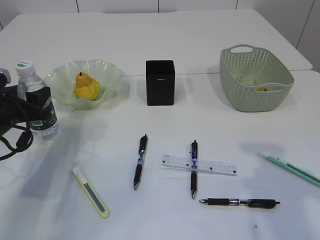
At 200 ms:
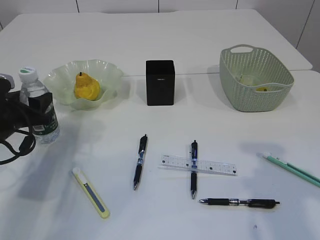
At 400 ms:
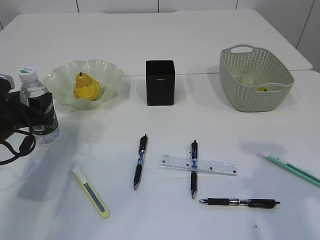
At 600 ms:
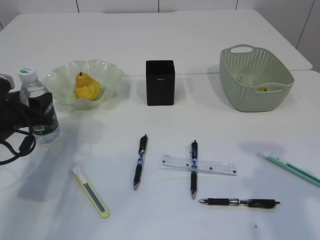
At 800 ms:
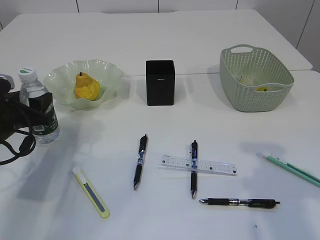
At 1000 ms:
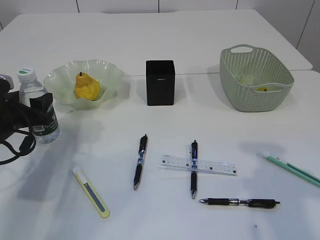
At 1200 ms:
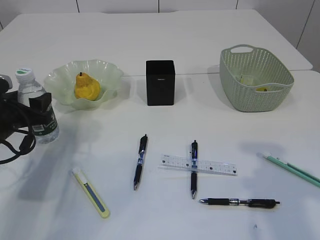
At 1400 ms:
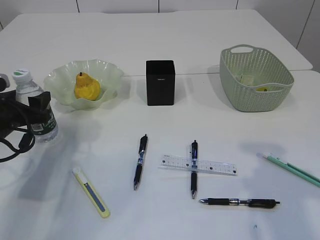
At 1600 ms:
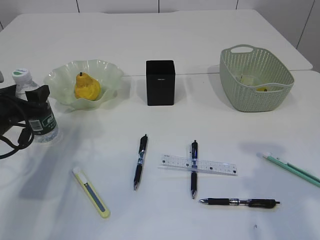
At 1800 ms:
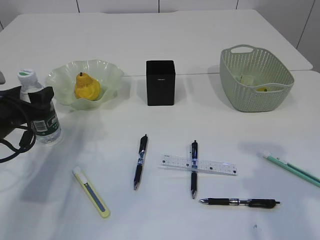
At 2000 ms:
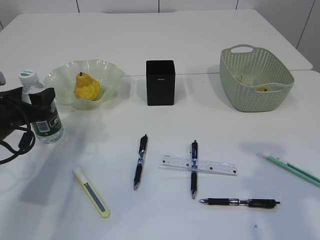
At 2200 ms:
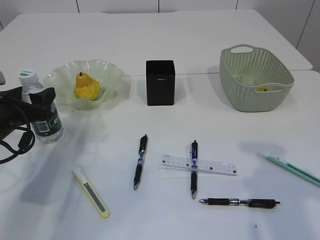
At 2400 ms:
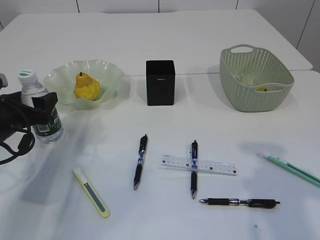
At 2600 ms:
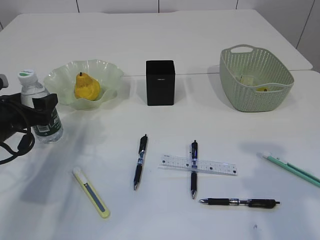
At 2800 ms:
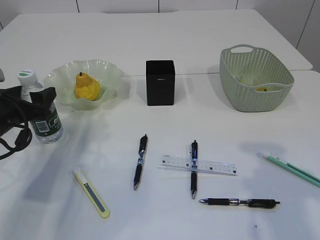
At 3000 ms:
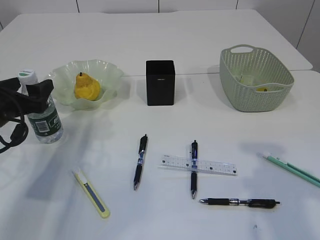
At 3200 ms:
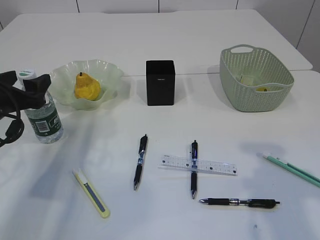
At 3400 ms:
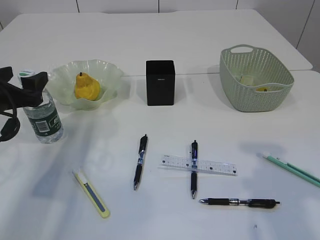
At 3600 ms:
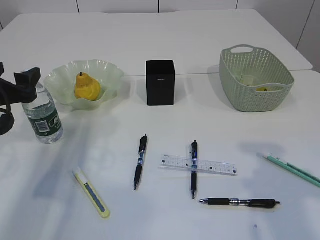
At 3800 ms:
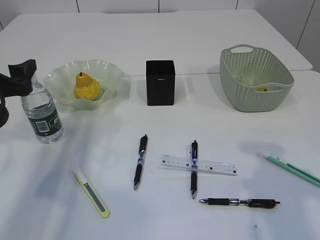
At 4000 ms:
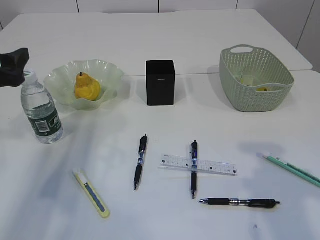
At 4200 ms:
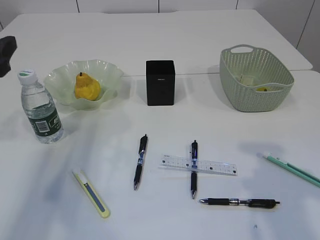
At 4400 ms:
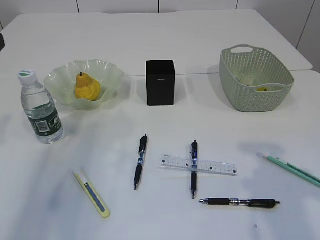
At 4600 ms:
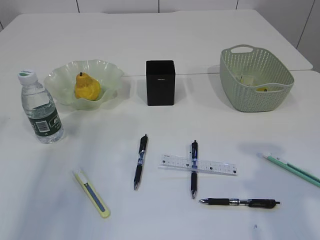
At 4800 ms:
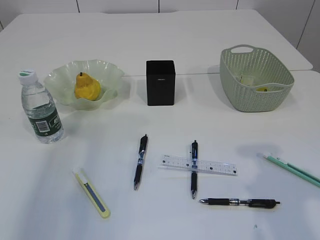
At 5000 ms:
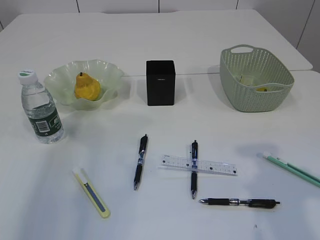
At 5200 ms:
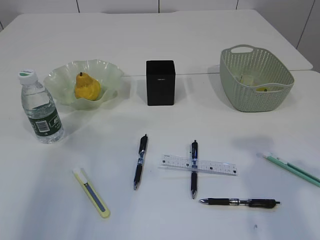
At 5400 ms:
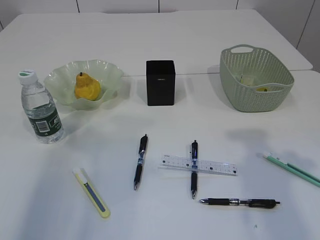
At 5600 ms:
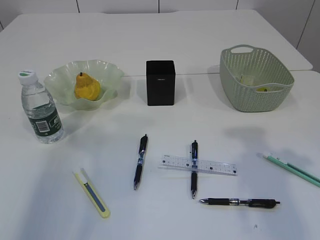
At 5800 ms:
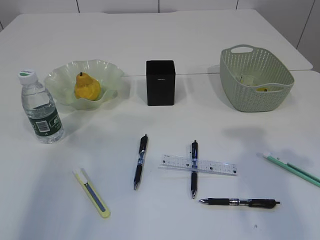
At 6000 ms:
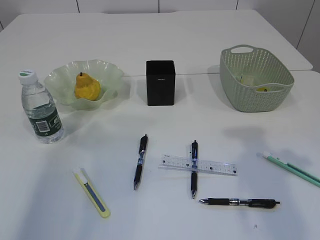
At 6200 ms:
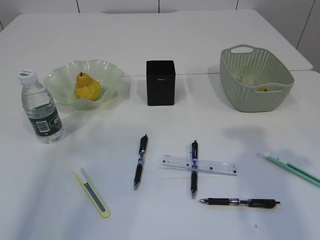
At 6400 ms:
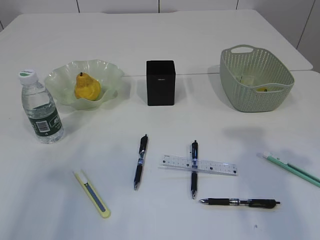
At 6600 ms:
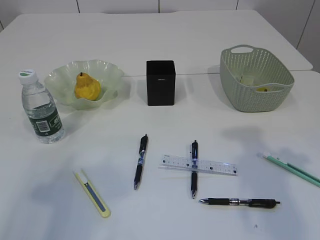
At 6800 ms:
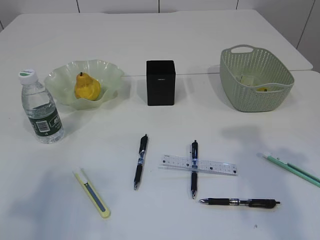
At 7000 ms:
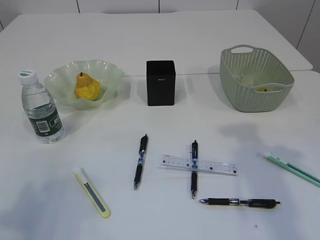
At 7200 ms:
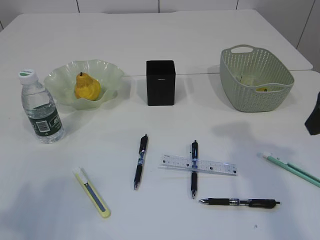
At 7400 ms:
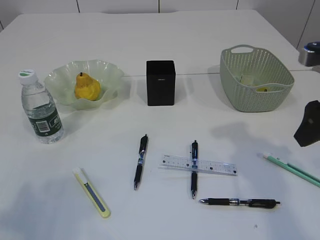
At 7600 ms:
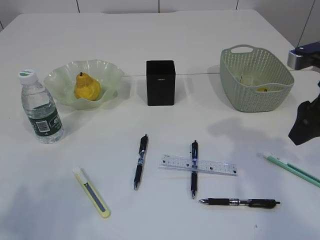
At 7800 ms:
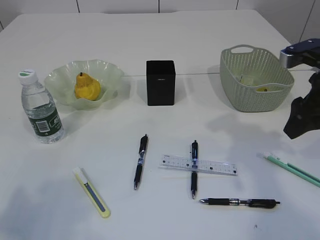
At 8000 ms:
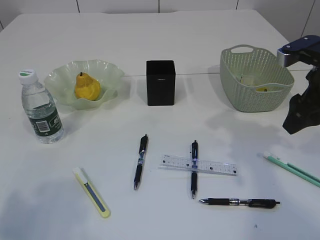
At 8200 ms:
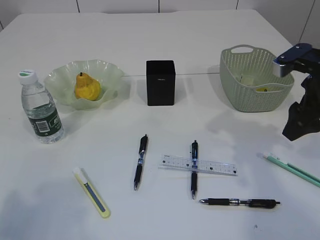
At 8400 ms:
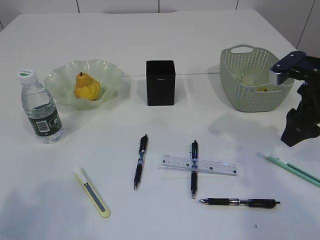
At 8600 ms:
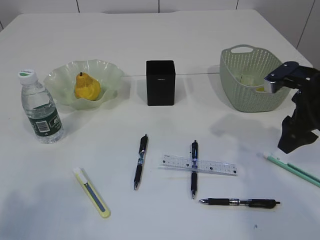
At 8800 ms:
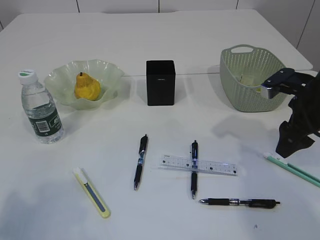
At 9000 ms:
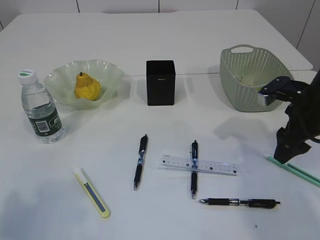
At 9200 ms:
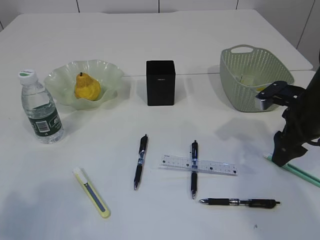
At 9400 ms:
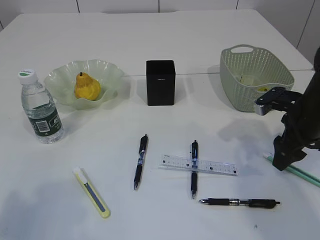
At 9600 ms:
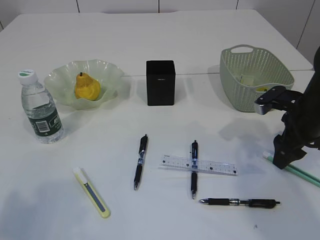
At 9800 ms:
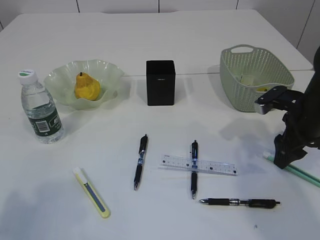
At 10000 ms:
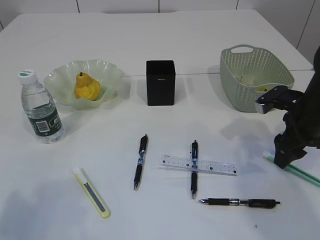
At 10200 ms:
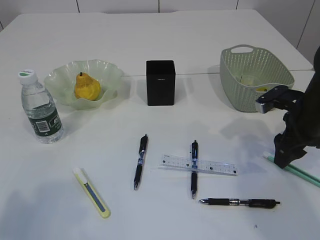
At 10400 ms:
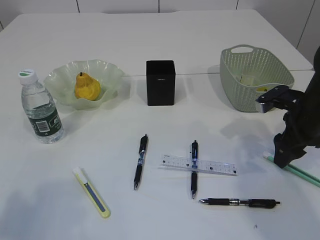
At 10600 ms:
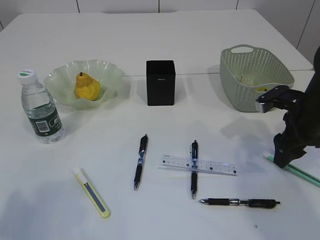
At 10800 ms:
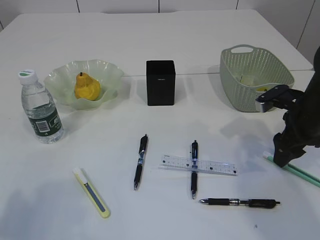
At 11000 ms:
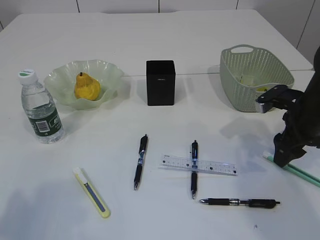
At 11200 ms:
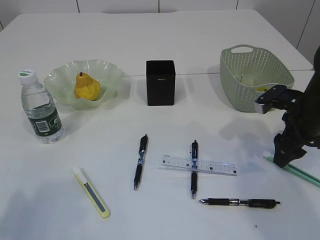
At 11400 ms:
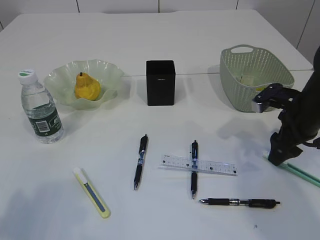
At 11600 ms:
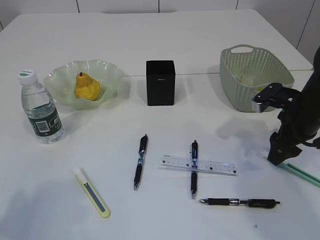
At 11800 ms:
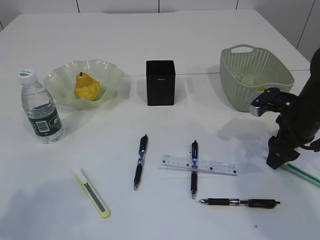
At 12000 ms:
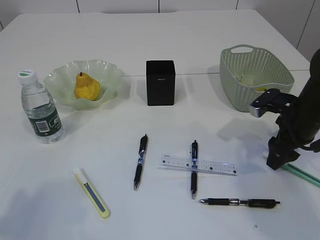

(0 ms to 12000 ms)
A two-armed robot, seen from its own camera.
Step, 0 ms - 3800 ms: Place the bottle.
0 ms - 3000 ms: The grippers stay close to where they were, moving slightly.
3000 ms - 4400 ms: The left gripper travels upward and backward by approximately 15 cm.
6000 ms - 7600 ms: The right gripper is displaced forward and downward by roughly 10 cm. Meanwhile the left gripper shifts approximately 15 cm backward and downward.
7600 ms - 9000 ms: The right gripper is displaced downward and forward by about 10 cm.
9000 ms - 12000 ms: The grippers move only a little.

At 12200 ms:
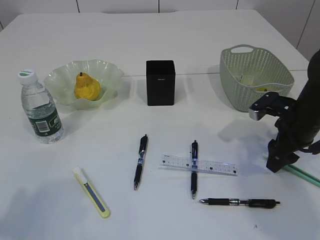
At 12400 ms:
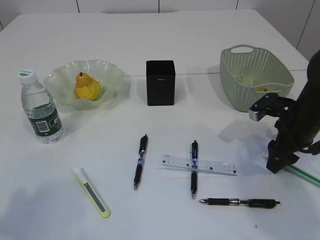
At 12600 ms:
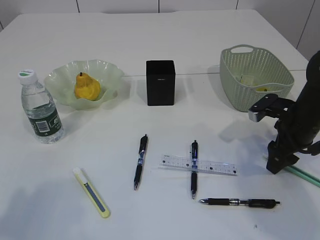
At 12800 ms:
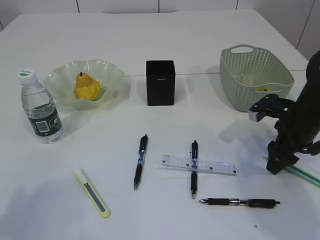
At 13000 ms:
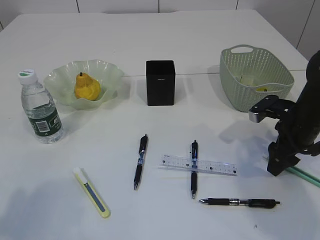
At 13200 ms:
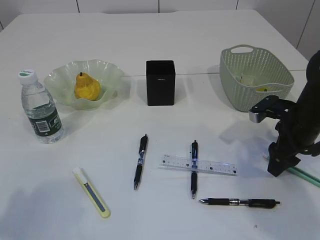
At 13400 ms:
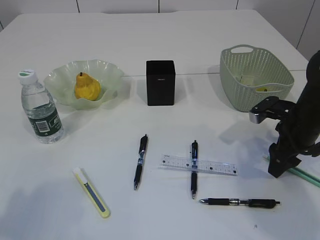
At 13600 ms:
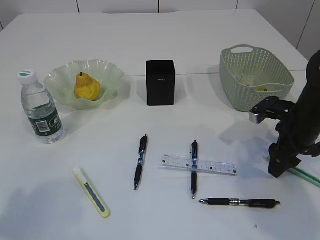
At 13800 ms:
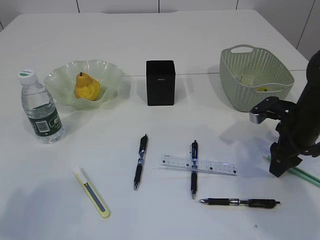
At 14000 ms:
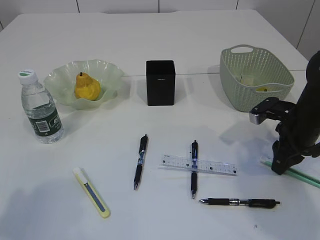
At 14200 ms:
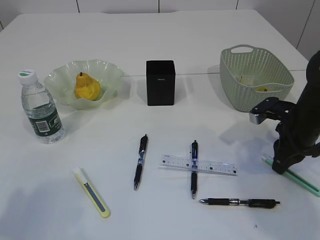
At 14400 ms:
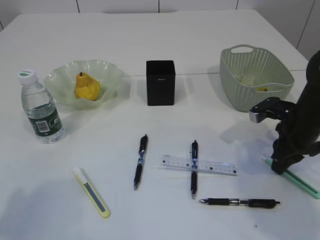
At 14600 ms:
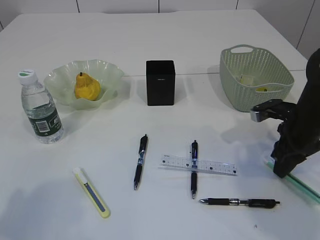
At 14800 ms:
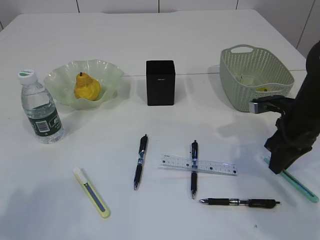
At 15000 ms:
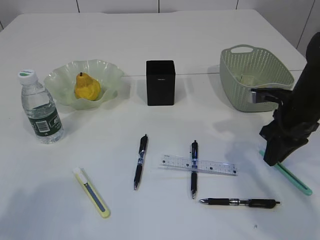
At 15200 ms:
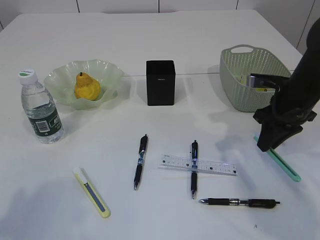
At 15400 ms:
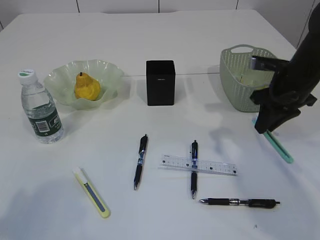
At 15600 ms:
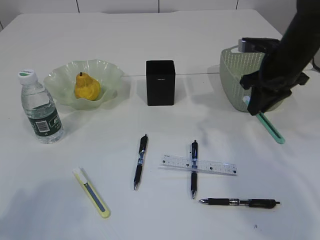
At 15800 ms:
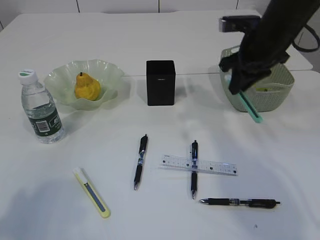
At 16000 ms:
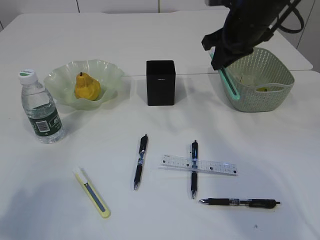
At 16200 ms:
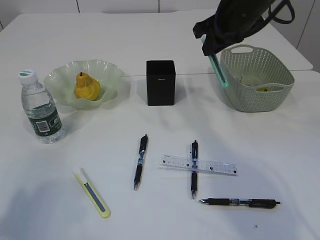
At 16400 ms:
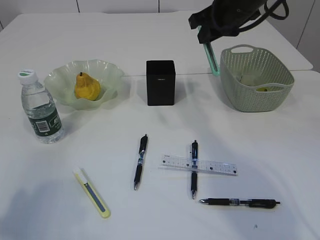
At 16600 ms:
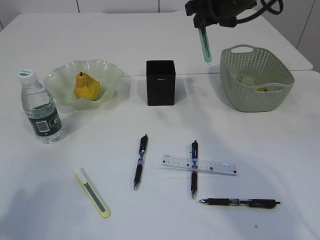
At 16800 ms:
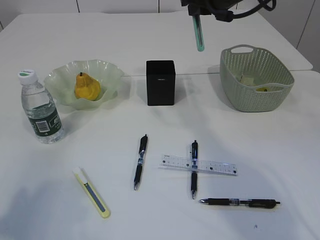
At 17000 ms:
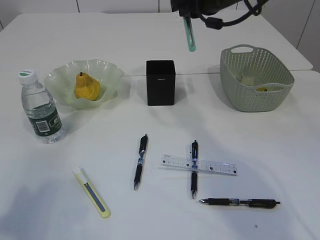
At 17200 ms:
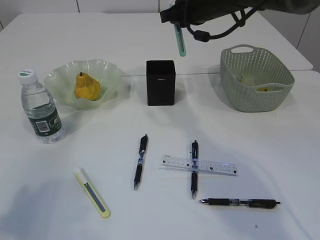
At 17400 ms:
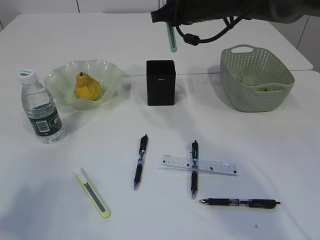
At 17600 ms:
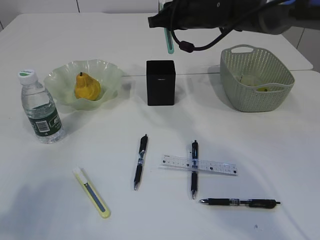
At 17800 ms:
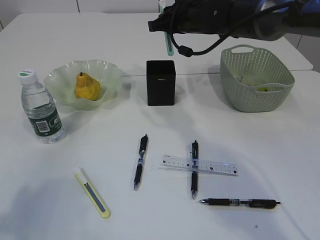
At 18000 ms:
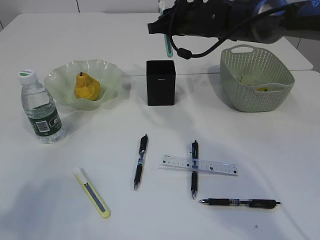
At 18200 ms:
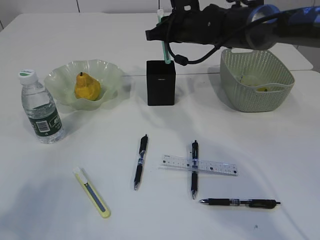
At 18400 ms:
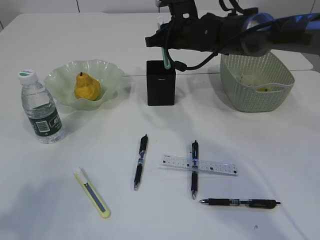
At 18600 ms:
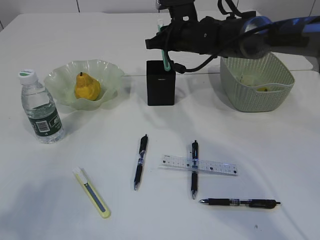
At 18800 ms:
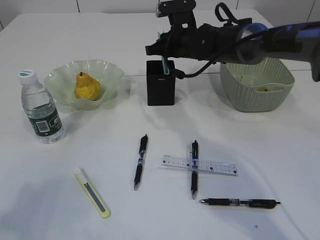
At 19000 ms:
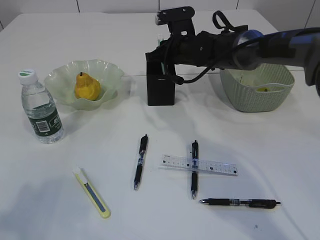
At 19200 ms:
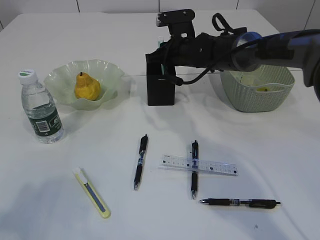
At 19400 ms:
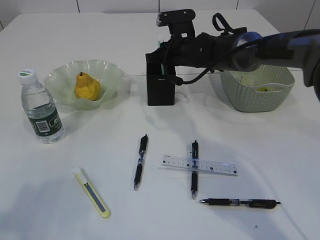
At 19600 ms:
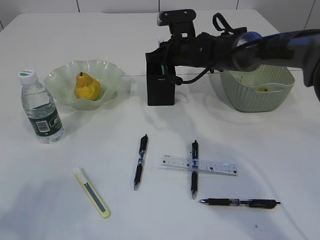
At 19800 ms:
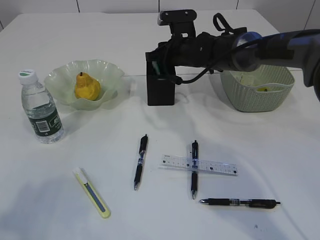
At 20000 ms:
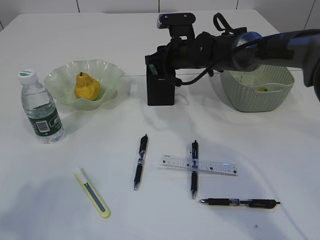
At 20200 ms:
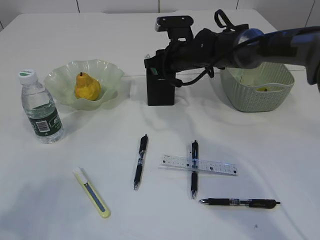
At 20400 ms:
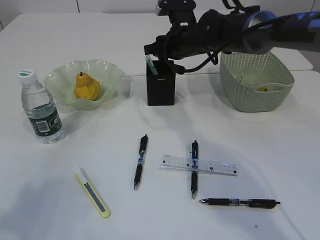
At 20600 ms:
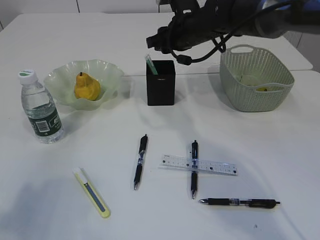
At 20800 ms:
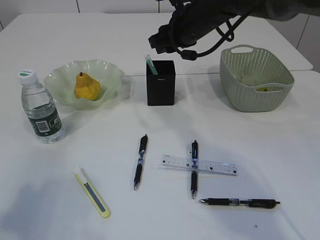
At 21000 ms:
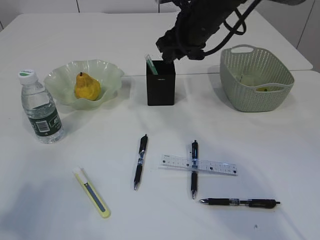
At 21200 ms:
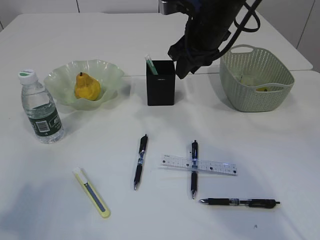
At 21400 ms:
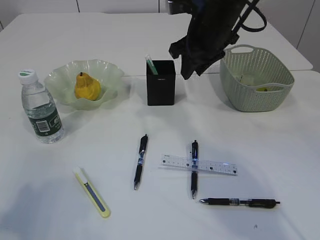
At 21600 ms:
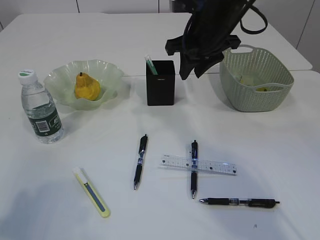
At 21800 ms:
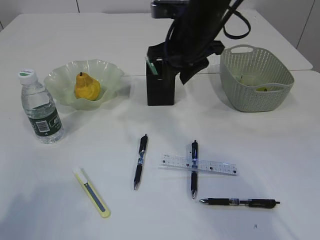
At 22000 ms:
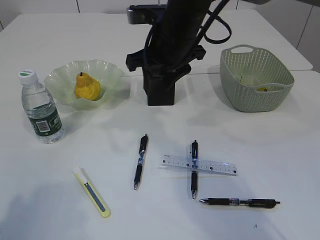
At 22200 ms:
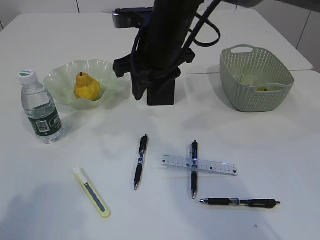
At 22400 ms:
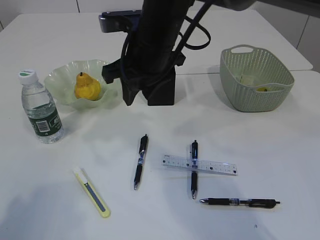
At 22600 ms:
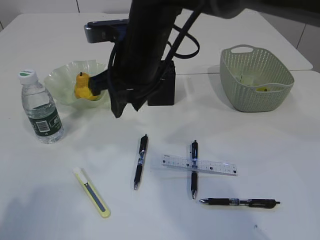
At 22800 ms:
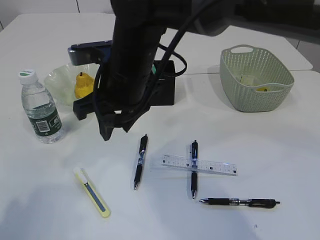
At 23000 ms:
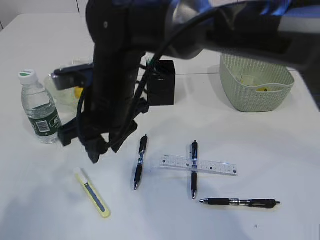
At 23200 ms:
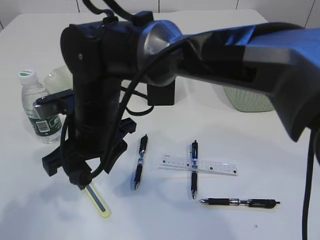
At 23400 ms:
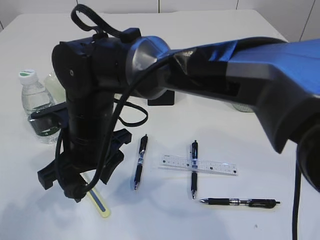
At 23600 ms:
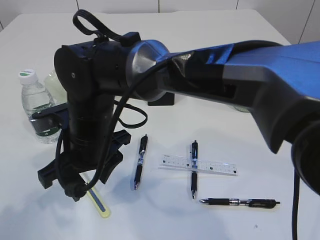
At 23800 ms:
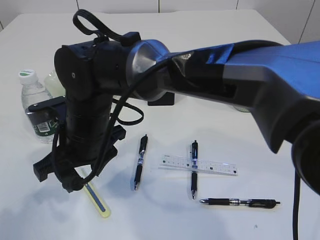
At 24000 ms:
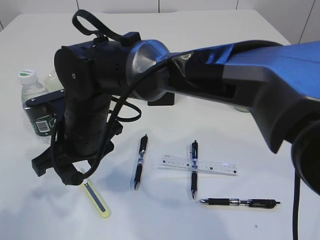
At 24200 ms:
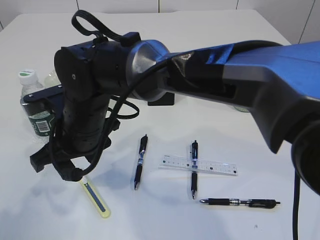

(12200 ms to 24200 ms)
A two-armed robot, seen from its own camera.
Step, 12200 ms - 14600 ms: pick up the blue knife.
Step, 14800 ms - 20400 ms: Place the blue scissors into the pen holder.
12200 ms - 13800 ms: Both grippers stay put.
13800 ms - 15200 ms: The right gripper changes place by roughly 5 cm, and closes.
15200 ms - 16600 ms: The right gripper is displaced upward, to the left and forward by some 20 cm.
16600 ms - 18200 ms: The right gripper travels downward and to the left by about 10 cm.
18200 ms - 19800 ms: The right gripper goes roughly 5 cm downward.
19800 ms - 21200 ms: The right gripper is displaced upward and backward by roughly 15 cm.
21200 ms - 22600 ms: The right gripper moves to the left and backward, roughly 15 cm.
22600 ms - 24200 ms: The right gripper goes some 10 cm to the left and downward.
